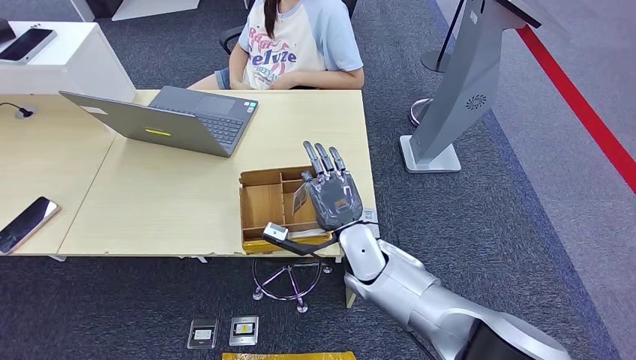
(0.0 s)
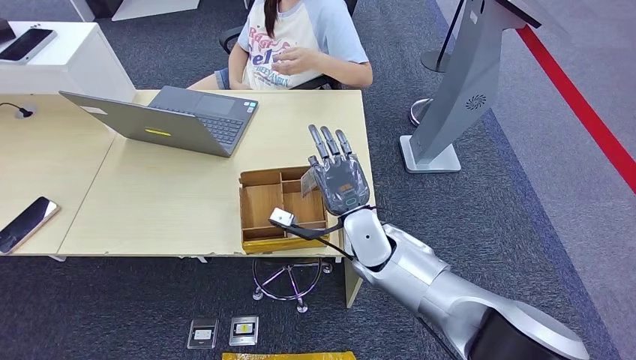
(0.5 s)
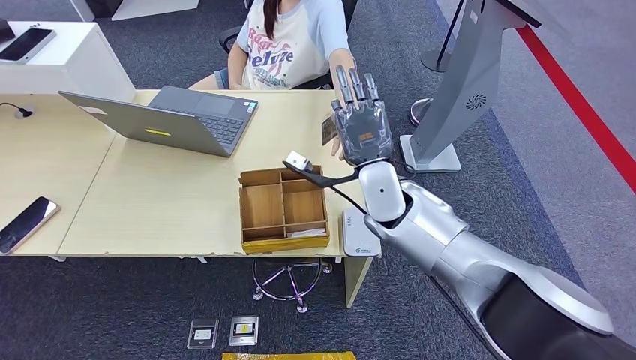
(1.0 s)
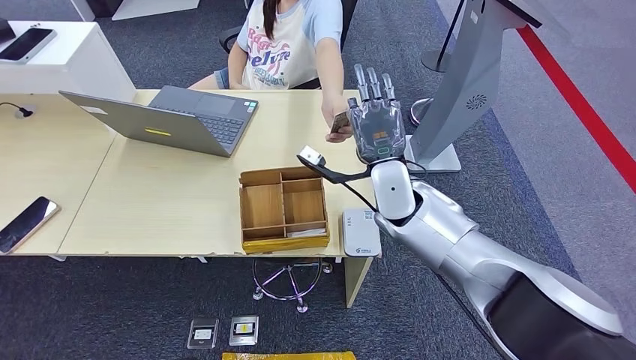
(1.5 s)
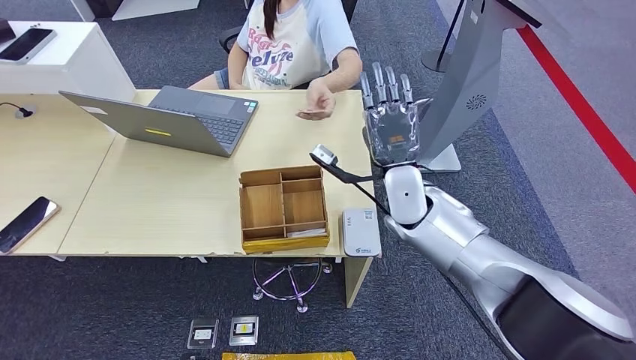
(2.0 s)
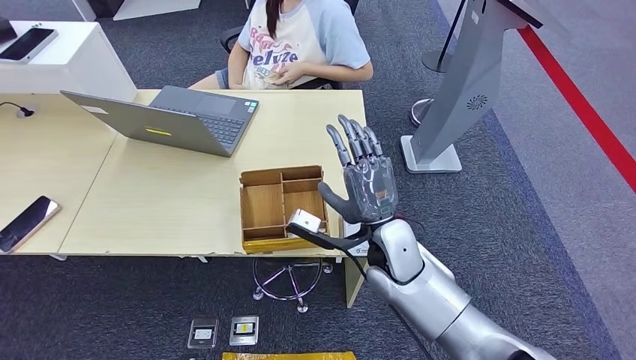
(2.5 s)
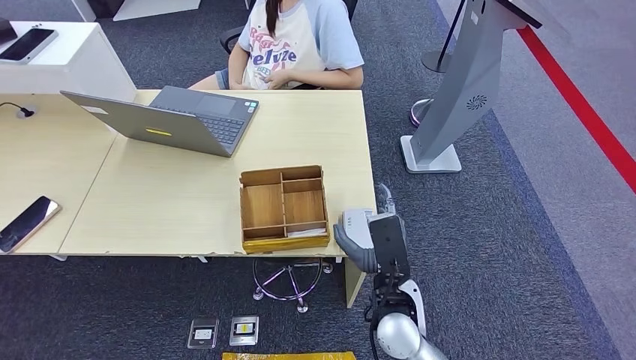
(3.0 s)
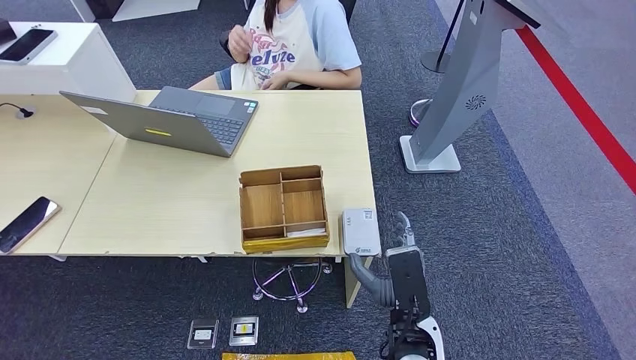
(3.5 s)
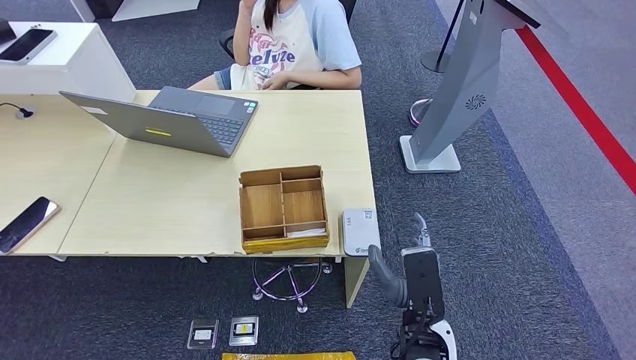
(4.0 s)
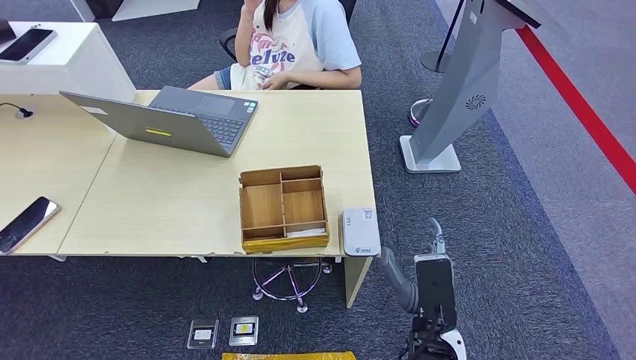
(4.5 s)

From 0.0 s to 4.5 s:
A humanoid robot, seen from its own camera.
Step, from 0.5 s to 4.5 s: Hand the room key to the person.
From 0.0 s to 2.0 s: The right hand moves upward, forward and to the right, some 15 cm.
From 2.0 s to 4.5 s: The right hand heads backward, covering some 25 cm.
